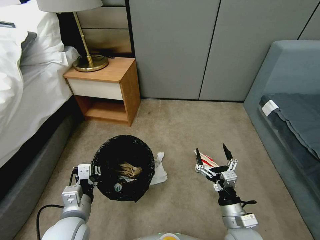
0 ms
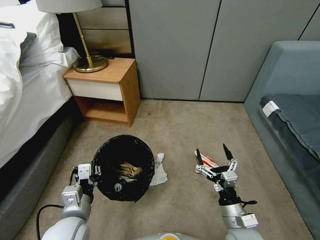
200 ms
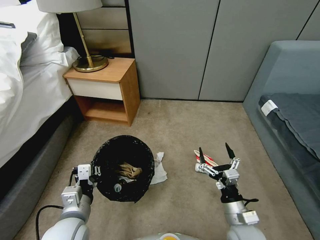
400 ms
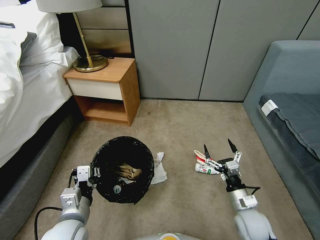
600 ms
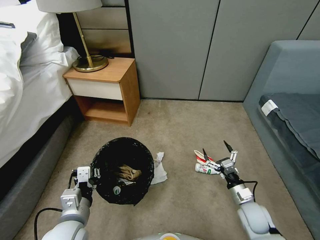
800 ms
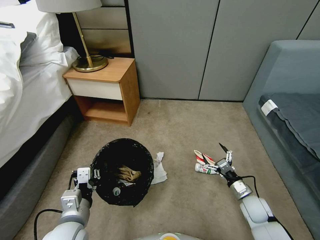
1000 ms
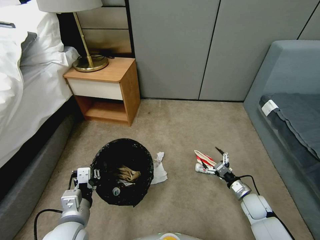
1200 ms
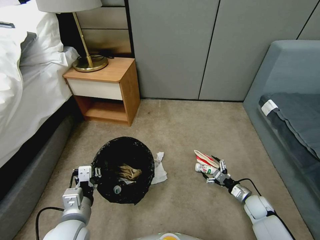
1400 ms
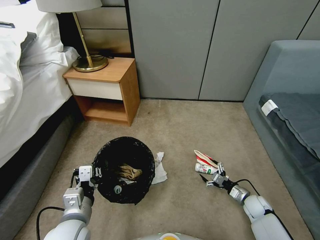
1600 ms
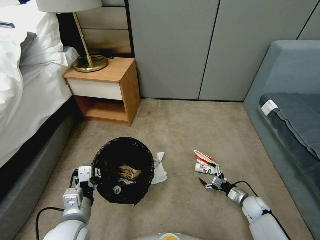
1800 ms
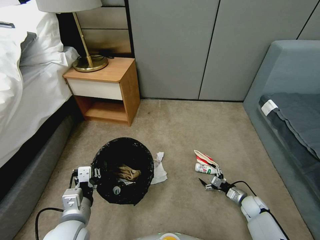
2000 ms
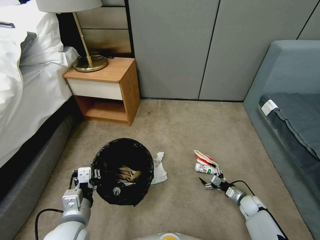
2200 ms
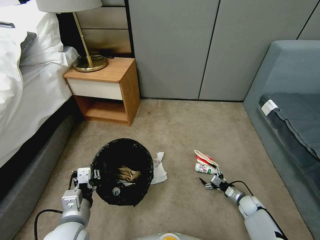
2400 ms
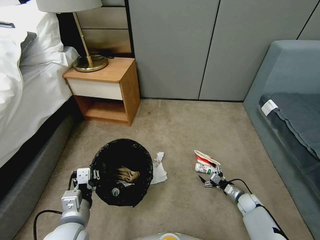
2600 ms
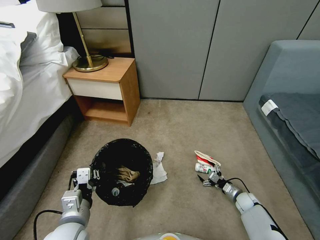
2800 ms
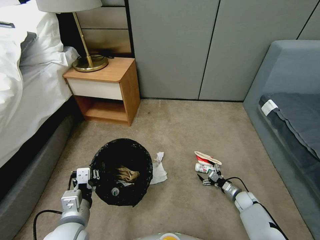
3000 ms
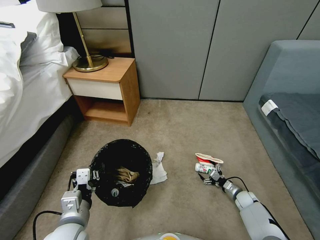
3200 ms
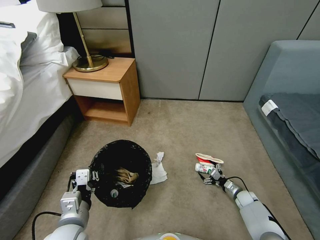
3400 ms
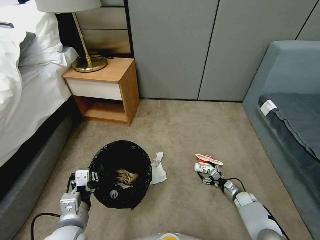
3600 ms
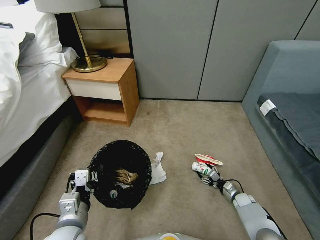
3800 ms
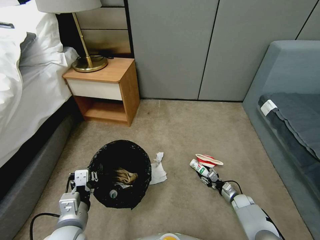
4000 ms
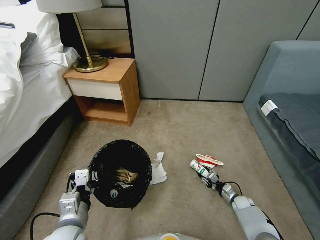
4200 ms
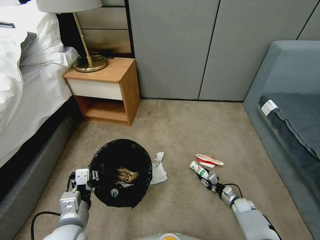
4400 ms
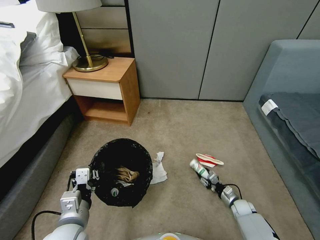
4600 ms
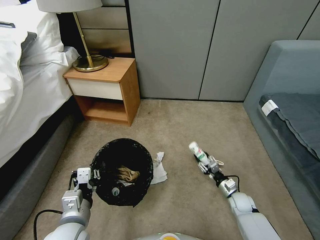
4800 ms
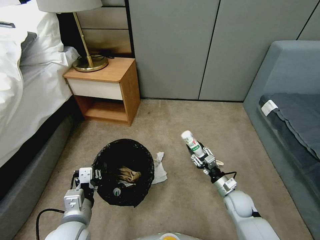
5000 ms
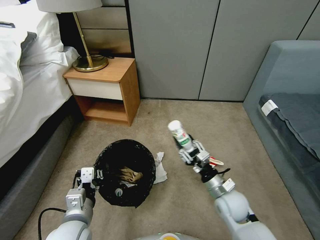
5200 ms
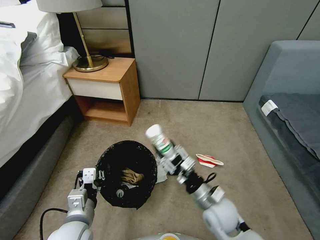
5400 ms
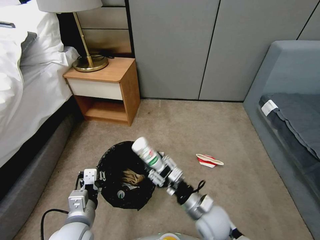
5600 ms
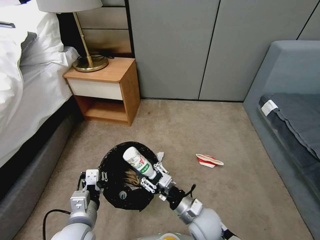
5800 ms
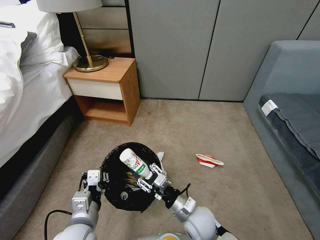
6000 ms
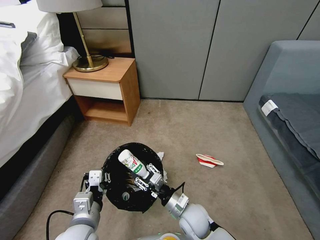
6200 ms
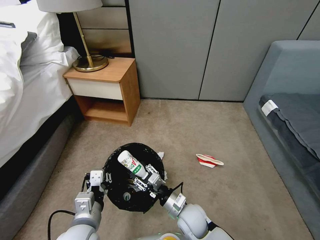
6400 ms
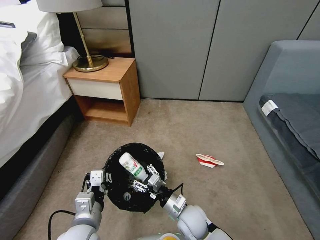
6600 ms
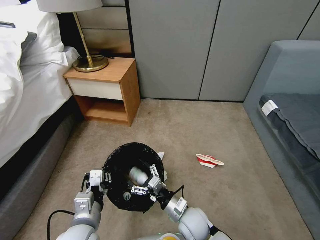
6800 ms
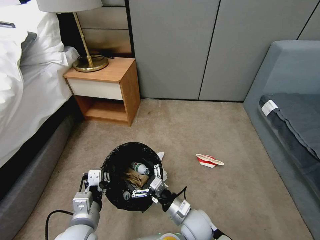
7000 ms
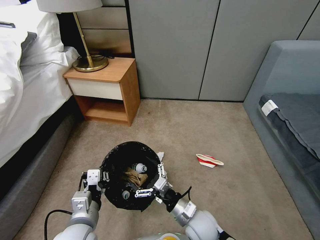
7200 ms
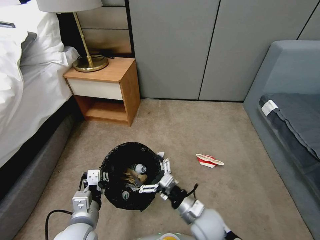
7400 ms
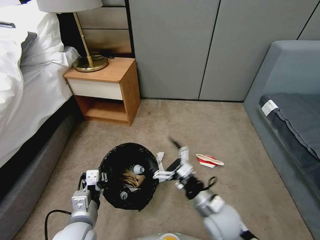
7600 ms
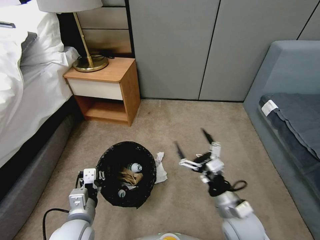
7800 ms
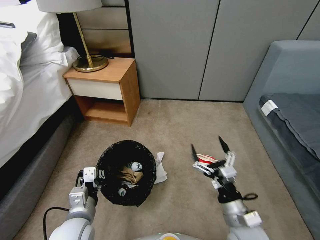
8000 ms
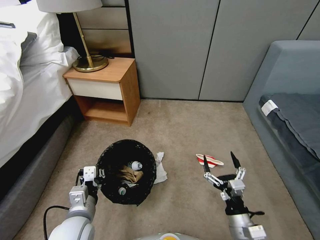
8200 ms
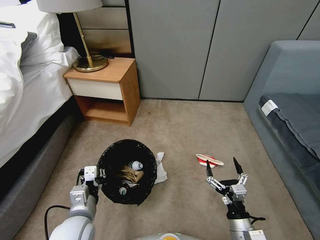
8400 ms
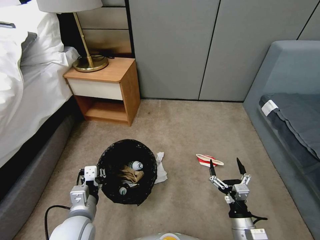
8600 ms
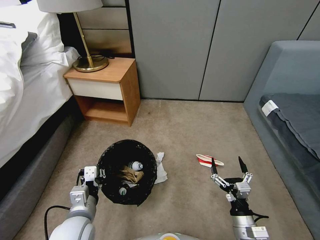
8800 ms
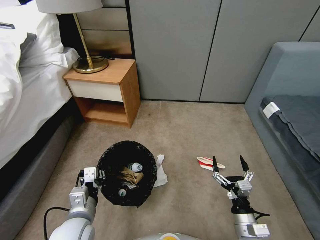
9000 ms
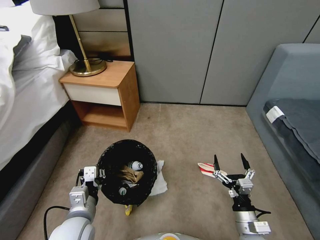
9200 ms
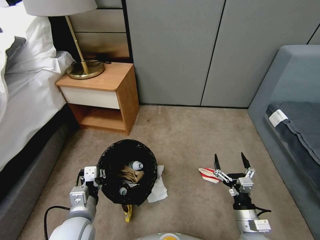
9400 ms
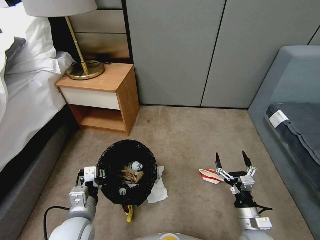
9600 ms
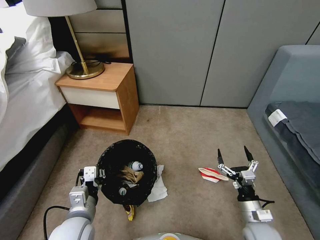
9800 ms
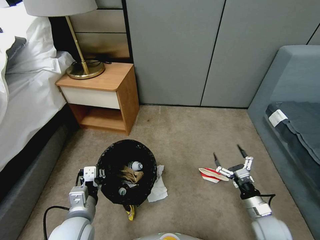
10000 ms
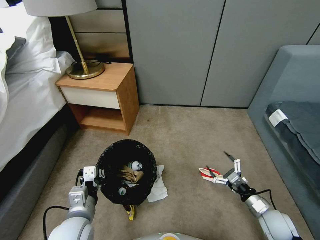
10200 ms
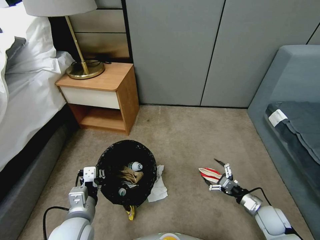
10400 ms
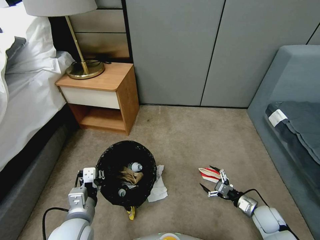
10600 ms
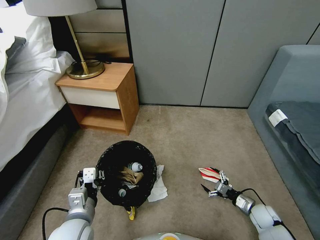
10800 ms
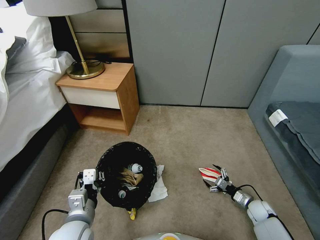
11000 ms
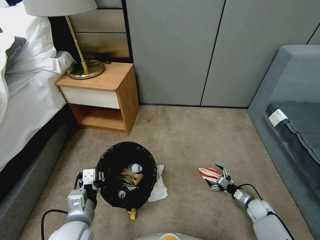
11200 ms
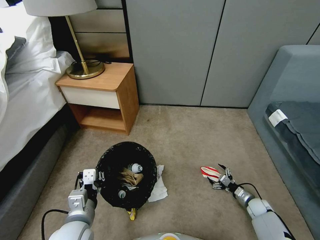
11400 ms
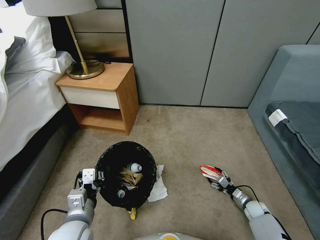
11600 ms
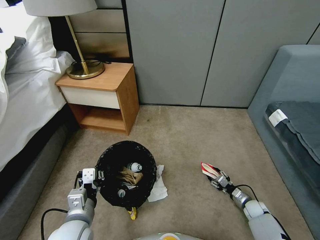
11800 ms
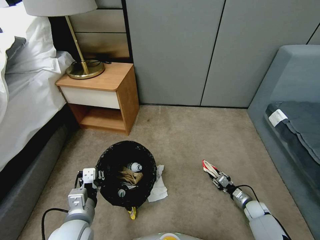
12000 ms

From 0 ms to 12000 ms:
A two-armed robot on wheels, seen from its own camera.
Task of the whole recording: Pick up the trash bin, then pick up the garbage from the floor and place it into the trash bin.
From 0 ms to 1600 ms: The right gripper heads to the right, downward and forward, covering approximately 25 cm.
From 1600 ms to 3000 ms: The right gripper travels downward by approximately 5 cm.
From 3000 ms to 4400 ms: The right gripper closes its fingers.
From 4400 ms to 6000 ms: The right gripper travels to the left and upward by some 35 cm.
From 6000 ms to 7600 ms: The right gripper is displaced upward and to the right by approximately 10 cm, and opens up.
From 7600 ms to 9000 ms: The right gripper is displaced to the right, downward and backward by some 15 cm.
From 9000 ms to 10400 ms: The right gripper travels to the right, forward and downward by approximately 20 cm.
From 10400 ms to 12000 ms: The right gripper shifts roughly 15 cm downward and forward, and closes up.

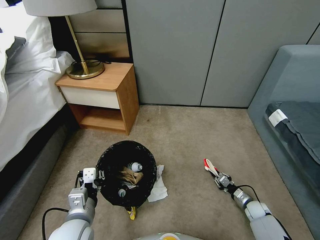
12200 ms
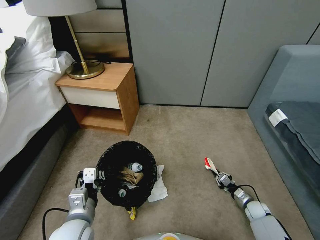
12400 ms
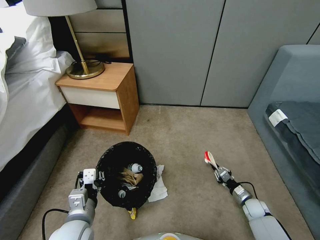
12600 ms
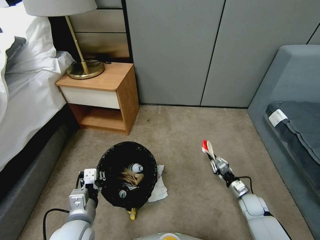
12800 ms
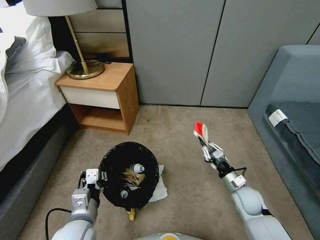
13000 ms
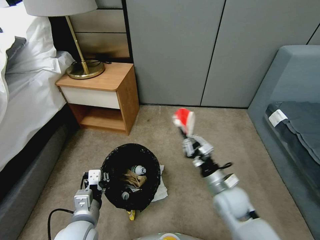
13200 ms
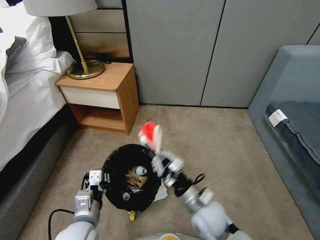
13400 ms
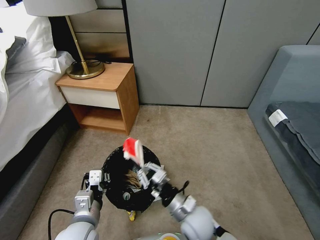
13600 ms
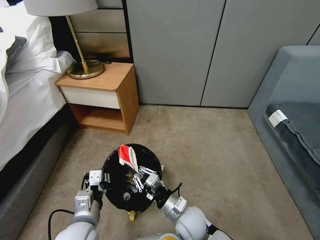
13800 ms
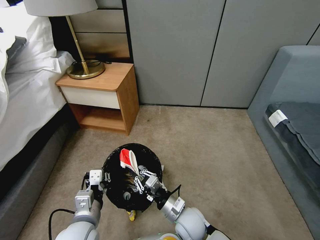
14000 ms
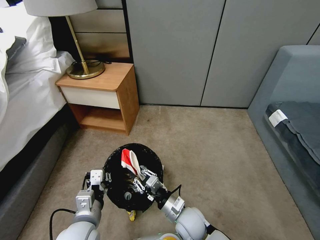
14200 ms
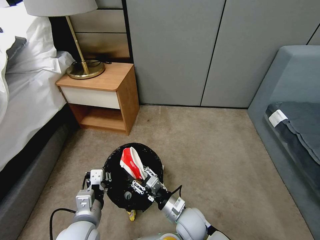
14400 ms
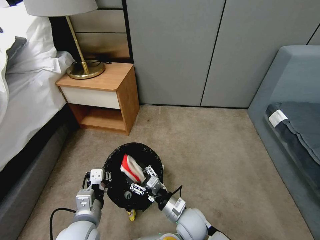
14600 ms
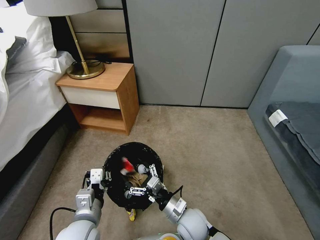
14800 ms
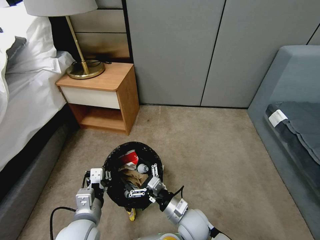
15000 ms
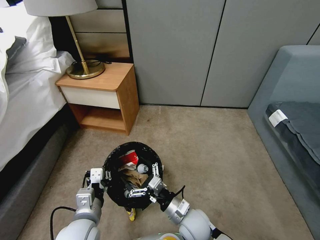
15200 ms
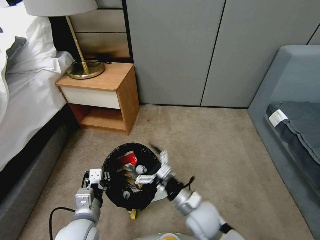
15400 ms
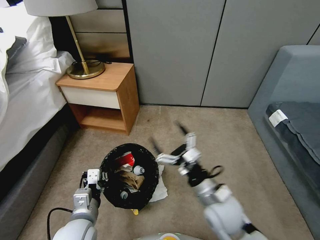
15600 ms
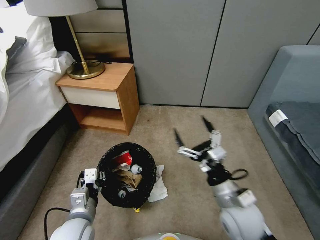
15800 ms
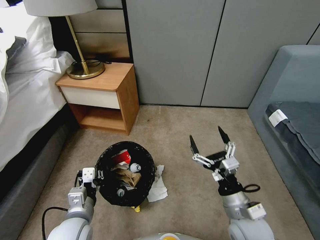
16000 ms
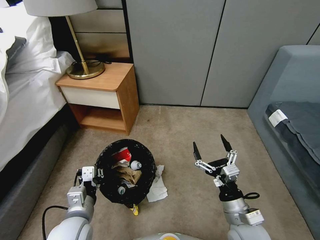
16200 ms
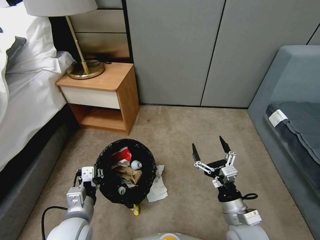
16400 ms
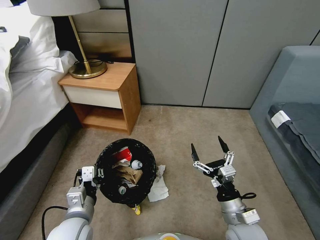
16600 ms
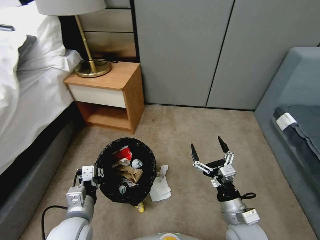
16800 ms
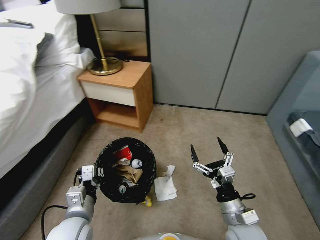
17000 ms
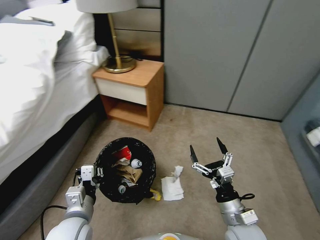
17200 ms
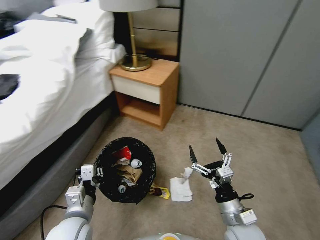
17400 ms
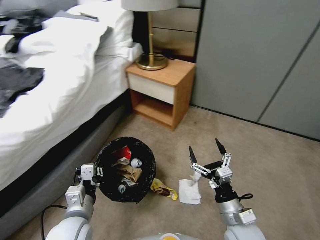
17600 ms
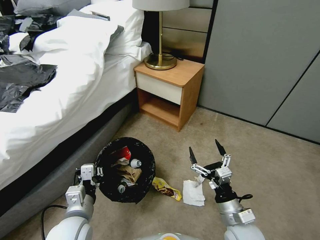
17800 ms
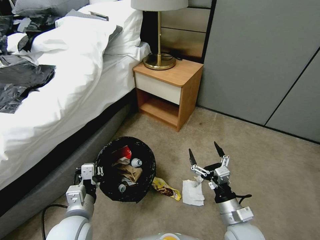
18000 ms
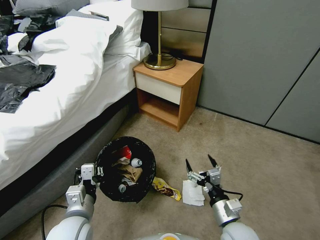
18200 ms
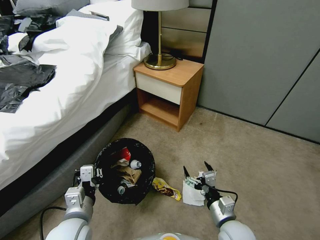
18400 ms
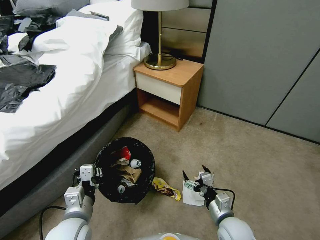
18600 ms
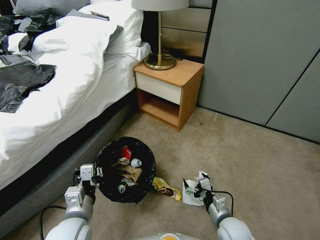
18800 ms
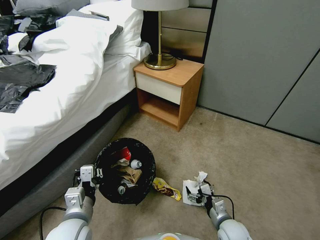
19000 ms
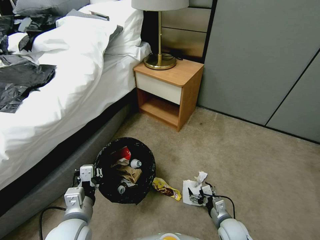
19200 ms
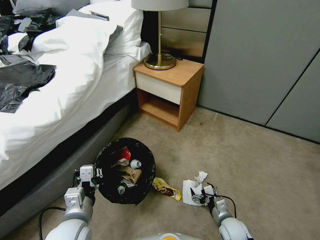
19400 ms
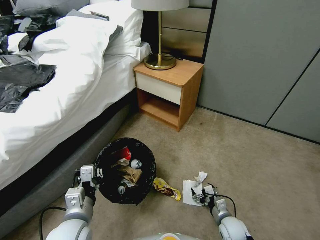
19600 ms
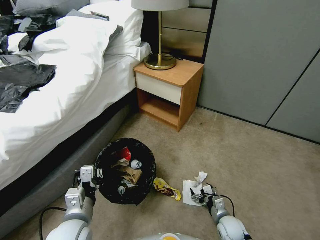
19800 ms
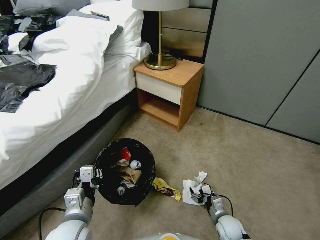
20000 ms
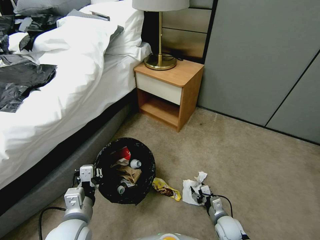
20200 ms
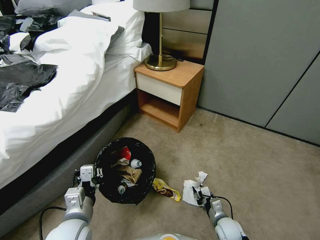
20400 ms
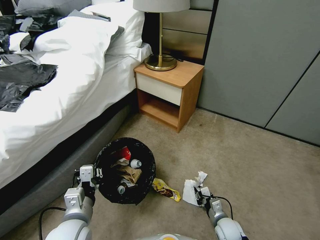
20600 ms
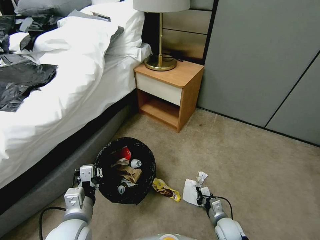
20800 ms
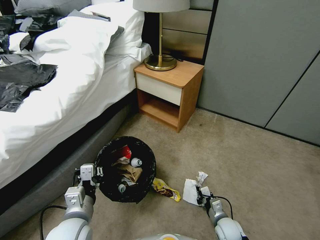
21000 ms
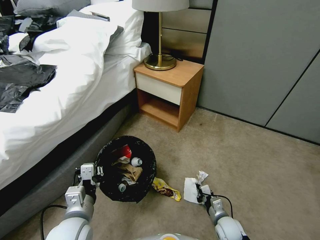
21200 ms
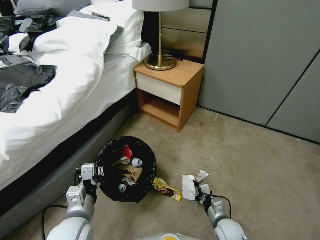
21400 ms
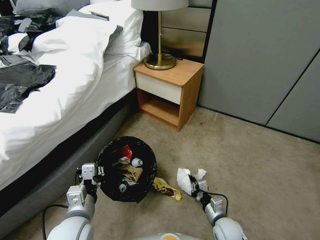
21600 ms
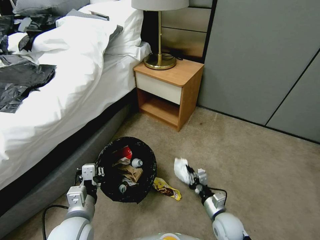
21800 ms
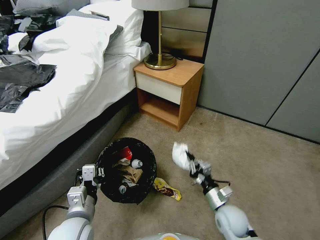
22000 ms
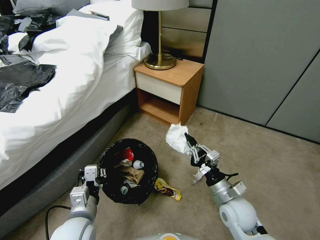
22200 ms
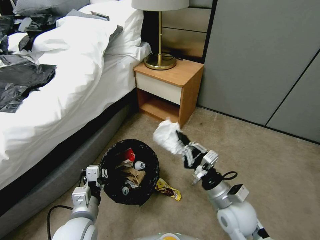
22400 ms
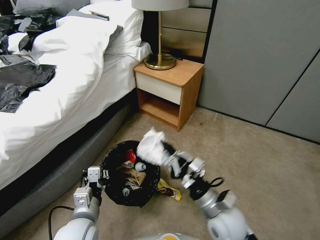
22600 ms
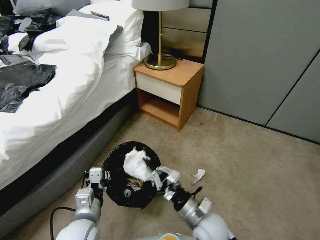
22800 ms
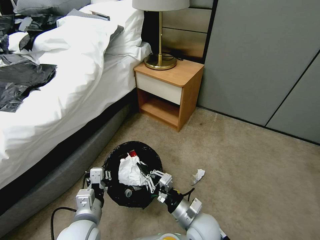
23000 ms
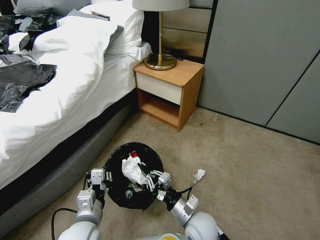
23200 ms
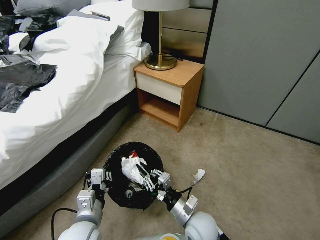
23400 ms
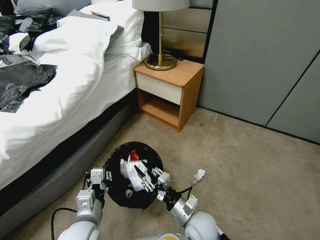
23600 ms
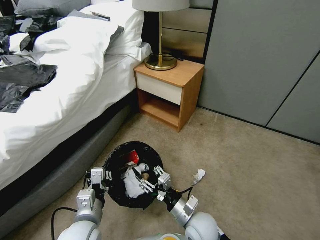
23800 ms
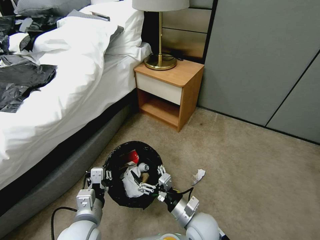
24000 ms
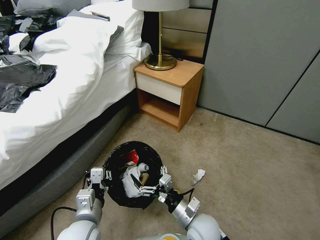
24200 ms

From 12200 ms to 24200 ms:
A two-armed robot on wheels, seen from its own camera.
Task of the whole recording: Pick up the trash bin, then pick up the garbage from the floor and place it into the trash bin.
From 12200 ms to 13800 ms: The right gripper goes some 40 cm to the left and upward.
From 13800 ms to 15200 ms: The right gripper opens up.
From 15200 ms to 16600 ms: The right gripper travels to the right and upward by some 15 cm.
From 18200 ms to 19800 ms: The right gripper travels downward by about 20 cm.
From 19800 ms to 21200 ms: The right gripper closes up.
From 21200 ms to 22600 ms: The right gripper shifts approximately 25 cm upward and to the left.
From 22600 ms to 24200 ms: The right gripper goes some 5 cm downward, and opens up.
